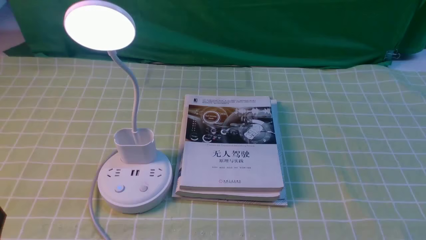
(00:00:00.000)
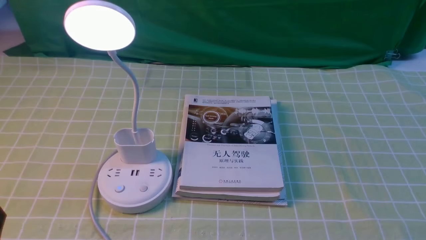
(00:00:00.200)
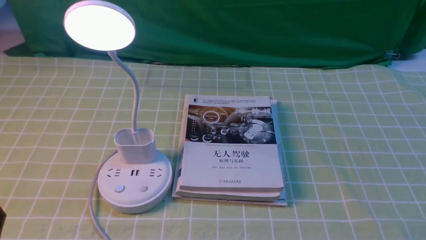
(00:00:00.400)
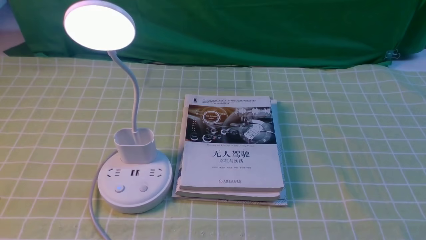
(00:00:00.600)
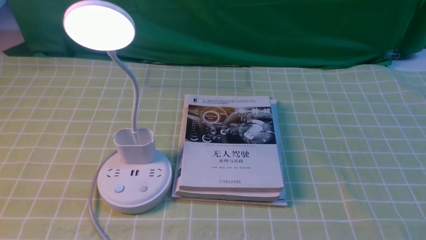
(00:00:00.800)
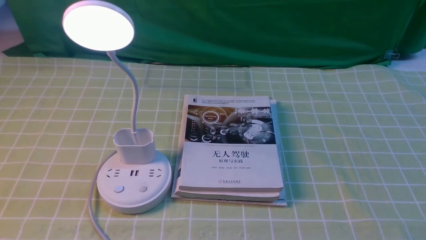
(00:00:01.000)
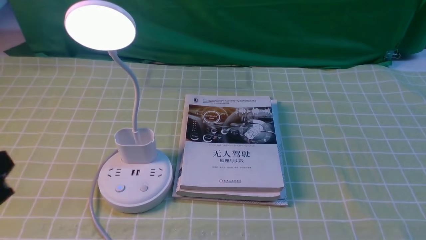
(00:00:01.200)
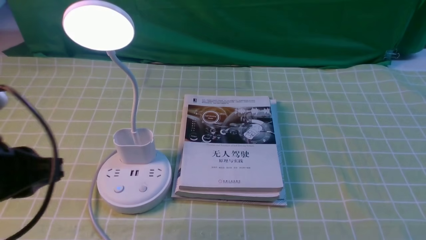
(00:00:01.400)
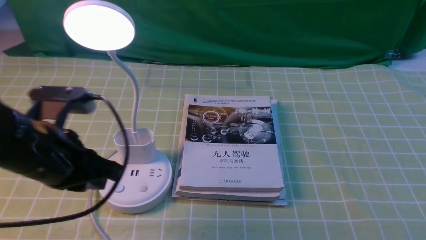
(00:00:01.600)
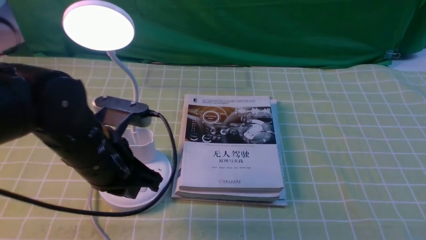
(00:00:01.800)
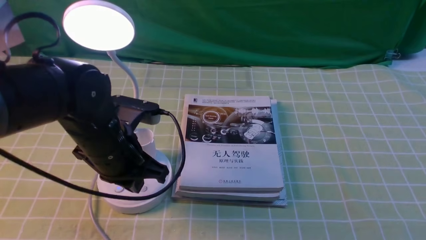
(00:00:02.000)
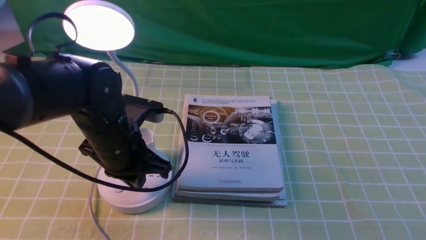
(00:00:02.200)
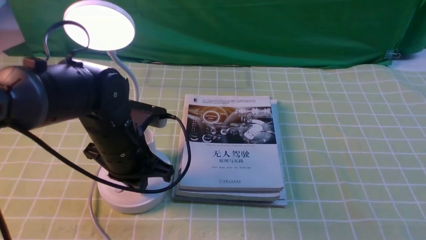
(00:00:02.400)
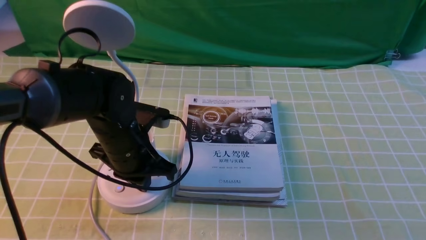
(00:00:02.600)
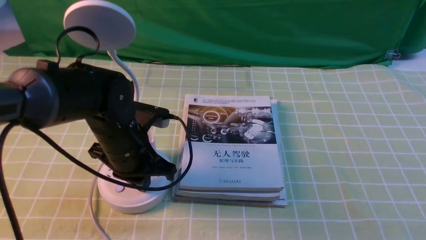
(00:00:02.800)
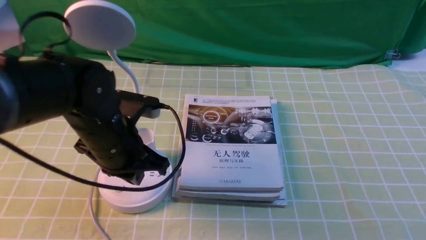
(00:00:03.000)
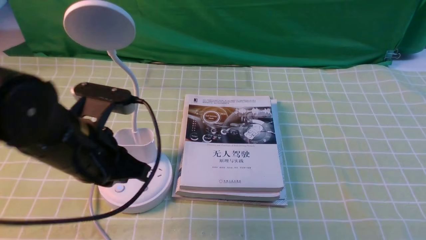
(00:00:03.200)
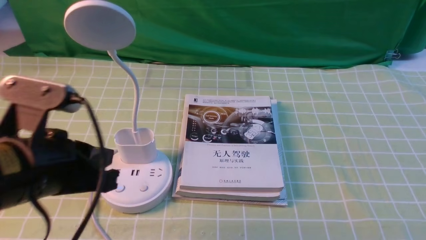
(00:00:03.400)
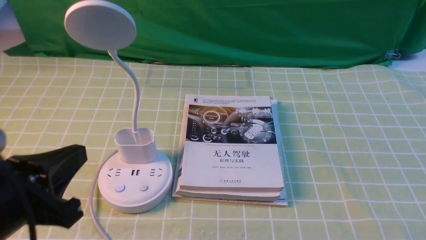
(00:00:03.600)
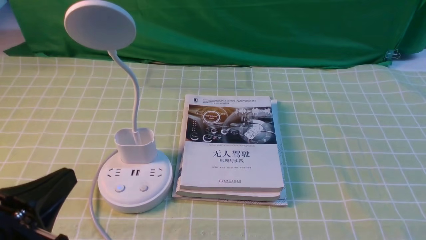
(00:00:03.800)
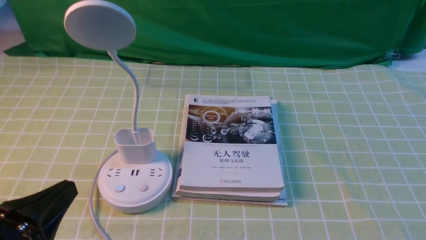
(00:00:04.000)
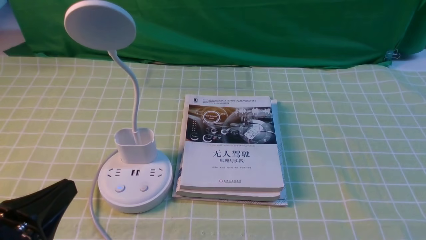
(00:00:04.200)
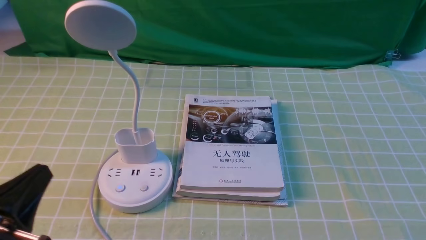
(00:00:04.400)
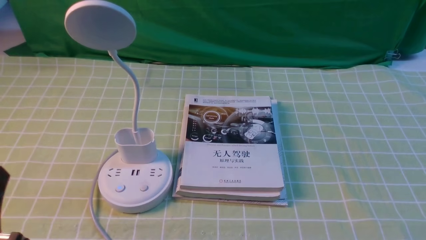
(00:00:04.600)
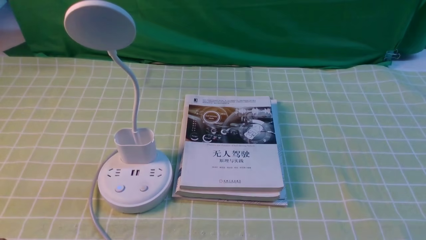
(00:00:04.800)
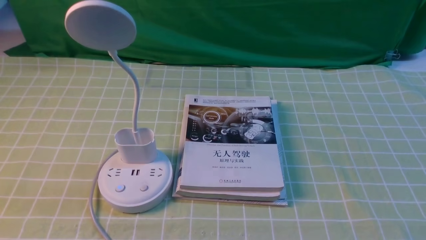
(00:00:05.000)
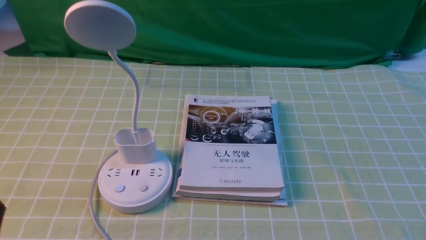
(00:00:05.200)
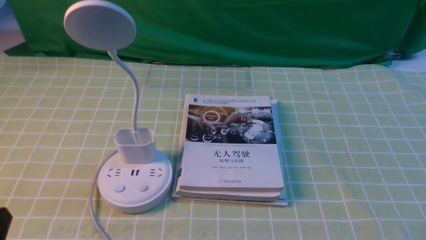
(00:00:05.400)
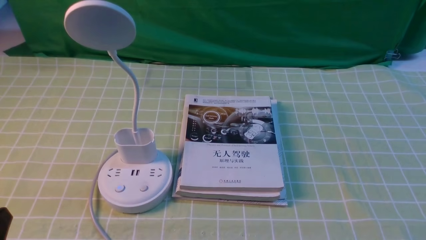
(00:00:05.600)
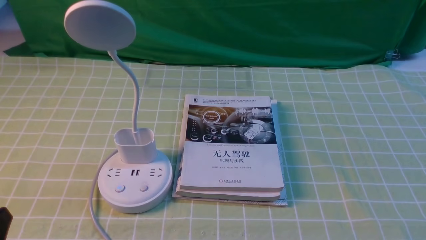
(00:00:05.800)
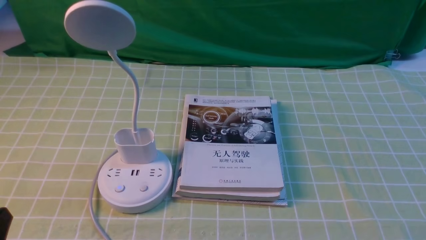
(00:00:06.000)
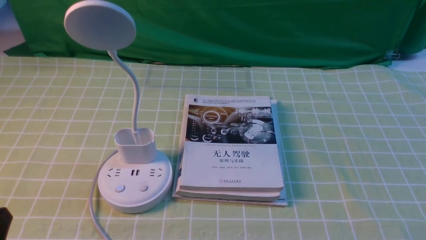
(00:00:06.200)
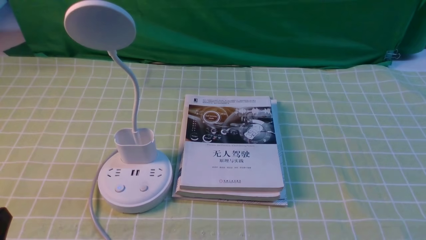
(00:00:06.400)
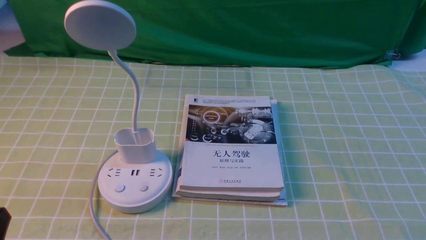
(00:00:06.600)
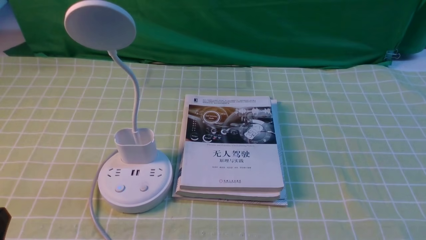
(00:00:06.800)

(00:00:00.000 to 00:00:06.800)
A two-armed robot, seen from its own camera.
Task of the whole recording: turn off the desk lamp on the green coffee tablecloth by hand.
Step, 00:00:00.000 - 00:00:03.000: use the left arm to press the button switch on the lamp holder.
00:00:00.000 - 00:00:01.400: The left gripper goes roughly 15 cm forward and upward.
00:00:01.400 - 00:00:02.800: The left gripper heads forward, to the right and downward, covering some 20 cm, and closes its fingers.
00:00:02.800 - 00:00:04.000: The left gripper is displaced backward and to the left by about 25 cm, and opens its fingers.
00:00:04.000 - 00:00:05.400: The left gripper changes place by approximately 5 cm.
00:00:05.400 - 00:00:06.800: Neither gripper changes place.
